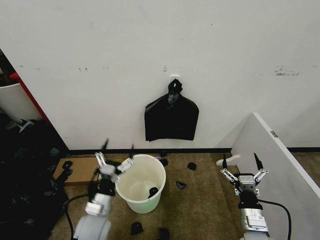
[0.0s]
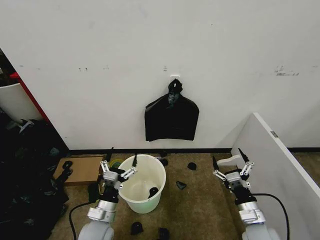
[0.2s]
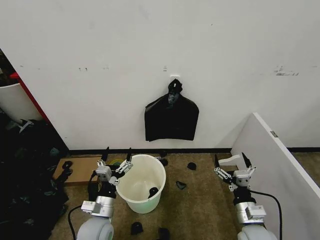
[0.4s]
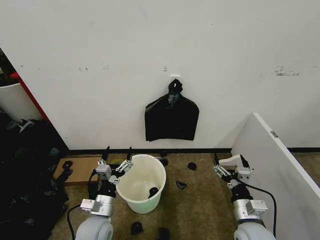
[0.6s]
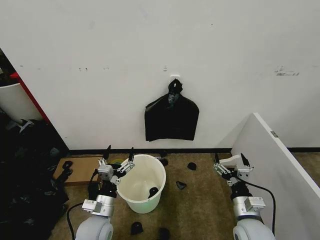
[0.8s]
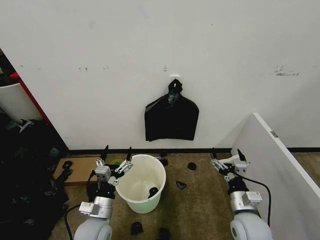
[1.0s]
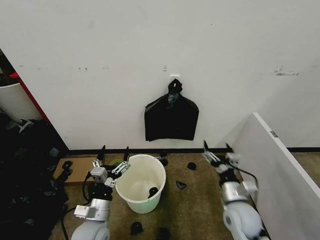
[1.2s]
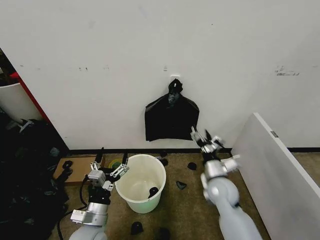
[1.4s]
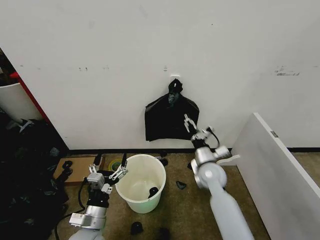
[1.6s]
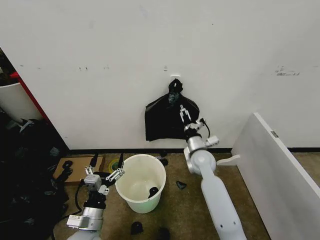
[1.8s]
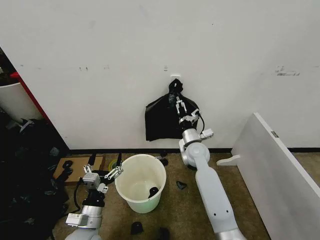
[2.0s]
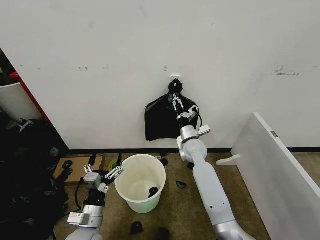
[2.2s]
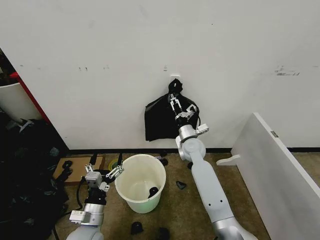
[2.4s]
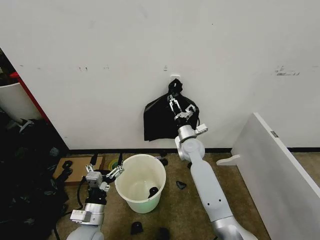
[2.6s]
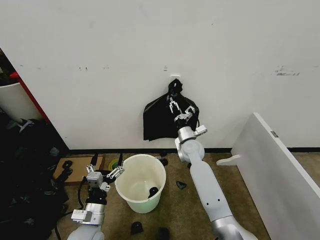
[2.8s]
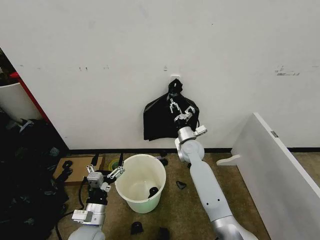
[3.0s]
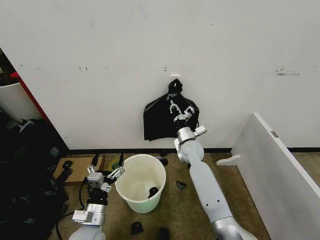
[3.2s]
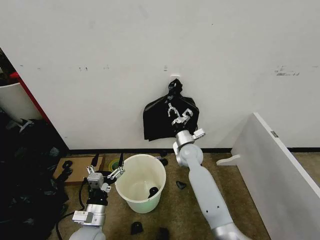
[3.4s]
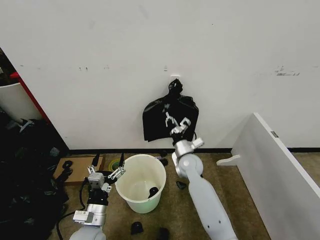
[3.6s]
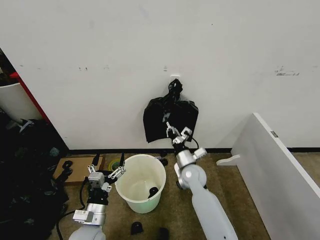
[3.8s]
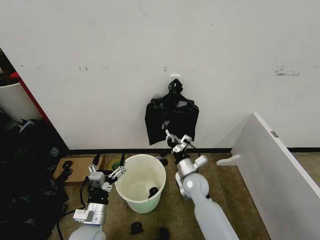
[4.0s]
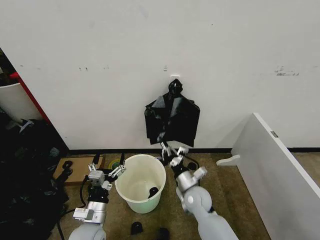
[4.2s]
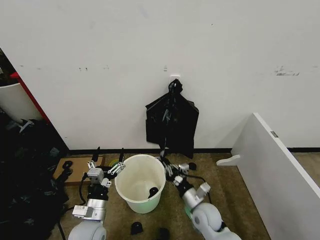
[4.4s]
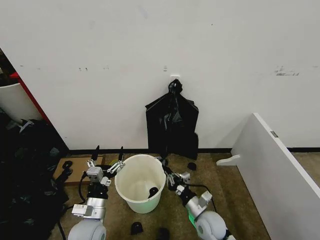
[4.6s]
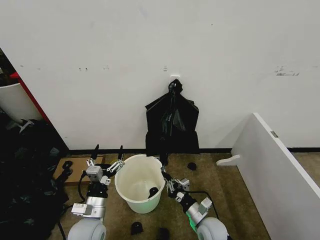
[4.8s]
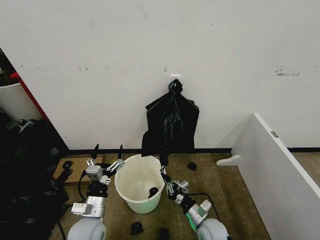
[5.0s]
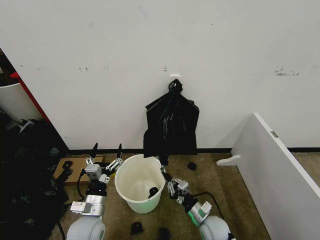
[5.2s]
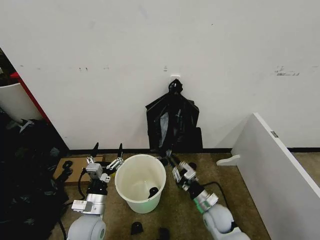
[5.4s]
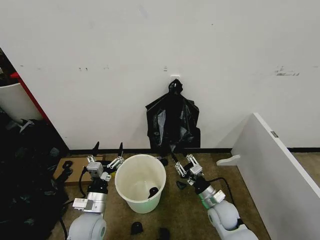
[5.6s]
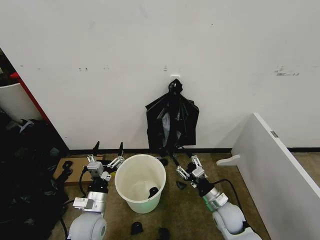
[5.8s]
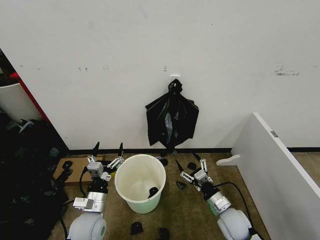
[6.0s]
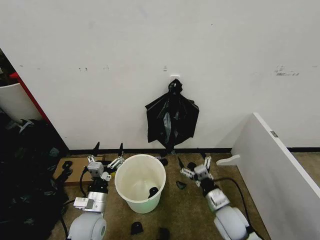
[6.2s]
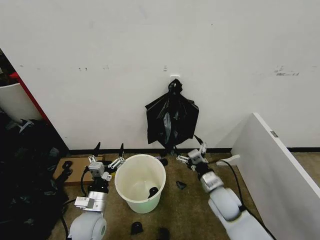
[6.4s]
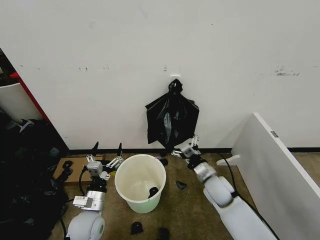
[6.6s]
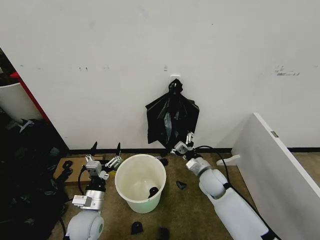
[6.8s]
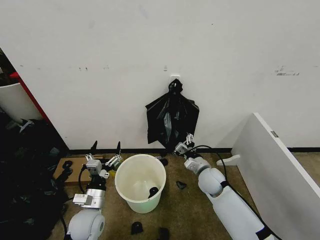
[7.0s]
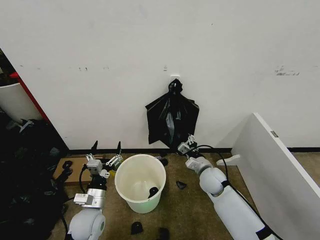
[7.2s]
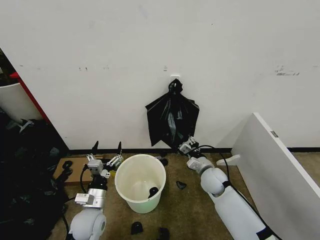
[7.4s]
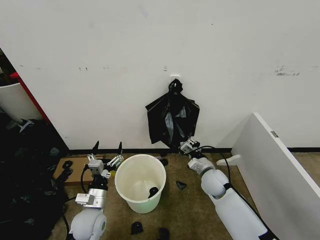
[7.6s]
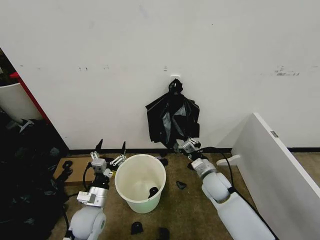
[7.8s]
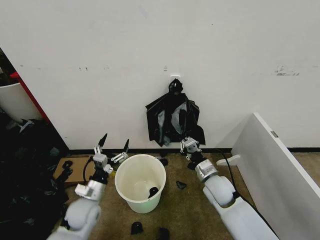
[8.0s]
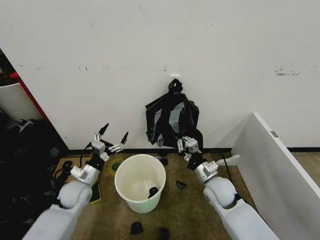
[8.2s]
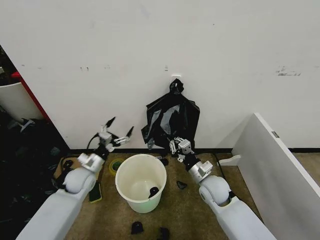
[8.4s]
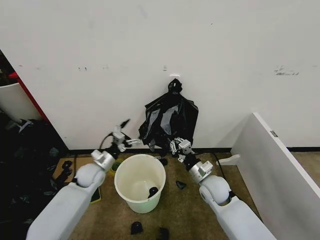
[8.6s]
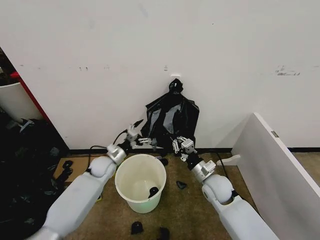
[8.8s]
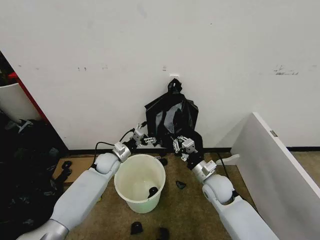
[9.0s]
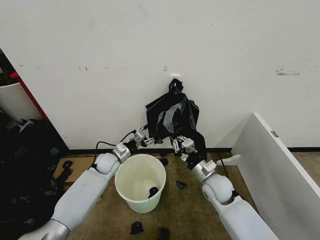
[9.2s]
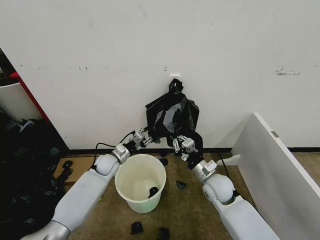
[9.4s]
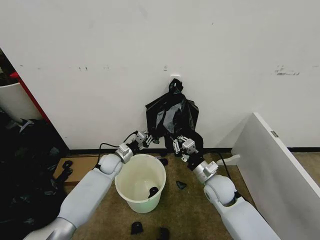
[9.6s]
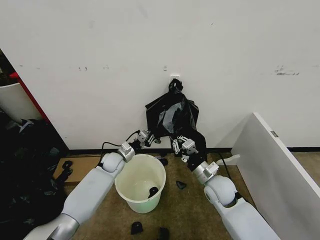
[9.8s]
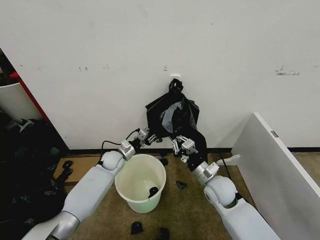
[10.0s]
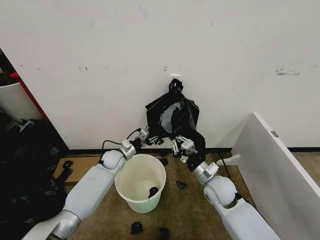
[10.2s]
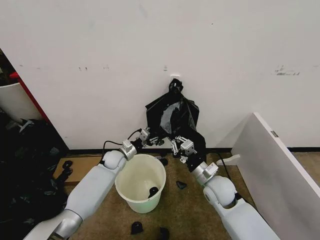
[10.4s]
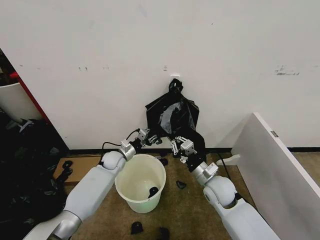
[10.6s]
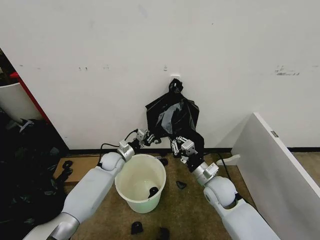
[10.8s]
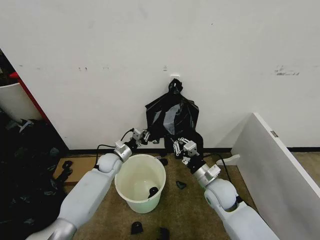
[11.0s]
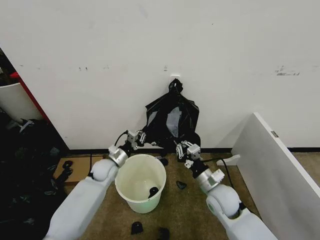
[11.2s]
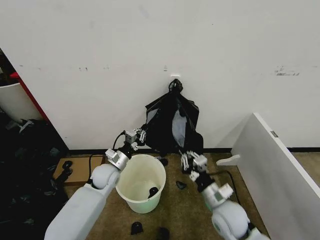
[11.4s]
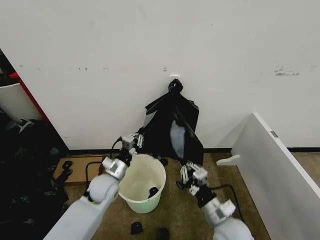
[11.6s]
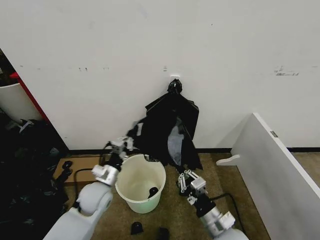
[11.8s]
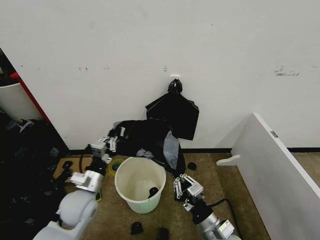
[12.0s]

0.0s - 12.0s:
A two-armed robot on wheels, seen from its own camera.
Task of the whole recording: Place the garbage bag over the trash bin.
1.6s - 3.0s: The right gripper shifts about 10 cm forward, and closes.
3.0s - 4.4s: The right gripper is displaced backward and downward by some 25 cm.
4.4s - 6.0s: The right gripper goes roughly 10 cm to the right, and opens up.
6.0s - 7.6s: The right gripper goes about 15 cm forward, and closes up.
7.6s - 9.0s: The left gripper is displaced forward by some 20 cm.
9.0s - 10.4s: The left gripper closes and opens again.
10.4s - 12.0s: The left gripper travels backward and upward by approximately 25 cm, and closes, while the right gripper moves backward, roughly 15 cm.

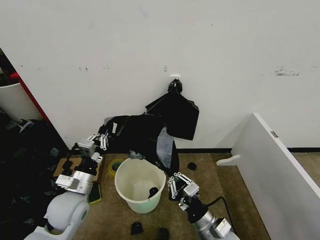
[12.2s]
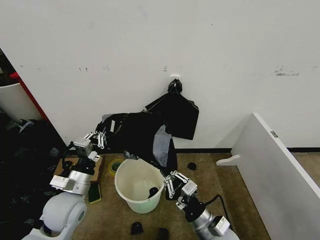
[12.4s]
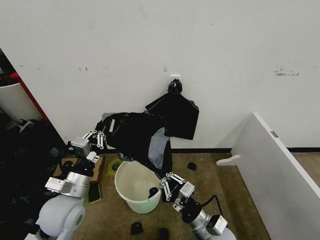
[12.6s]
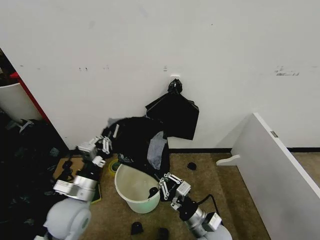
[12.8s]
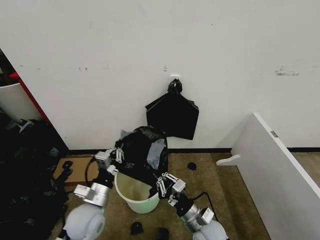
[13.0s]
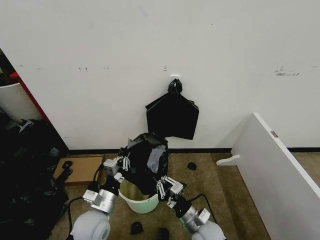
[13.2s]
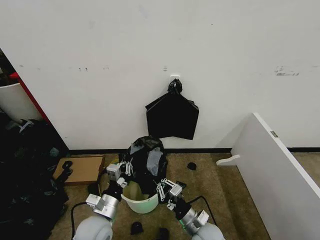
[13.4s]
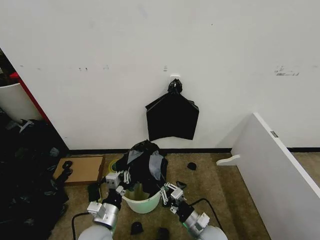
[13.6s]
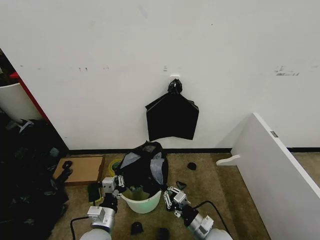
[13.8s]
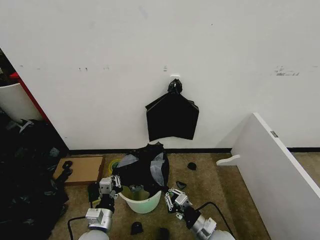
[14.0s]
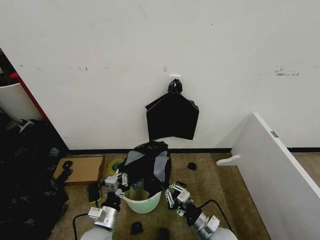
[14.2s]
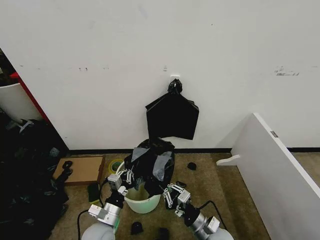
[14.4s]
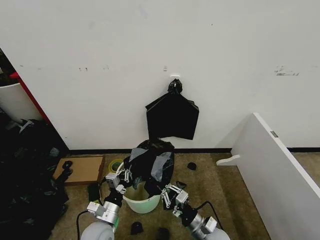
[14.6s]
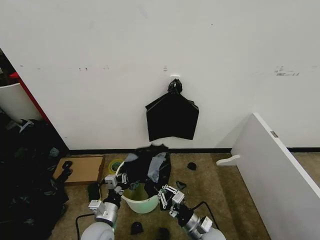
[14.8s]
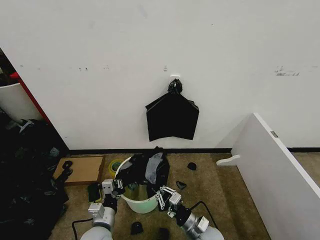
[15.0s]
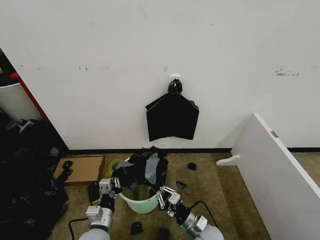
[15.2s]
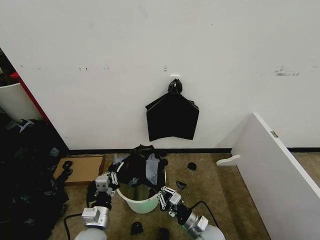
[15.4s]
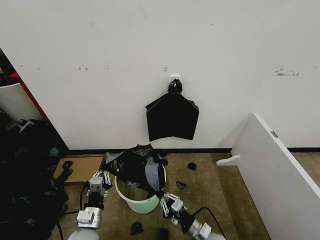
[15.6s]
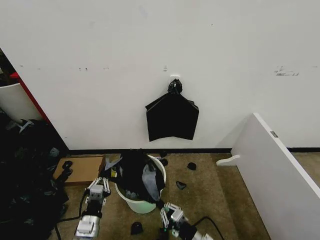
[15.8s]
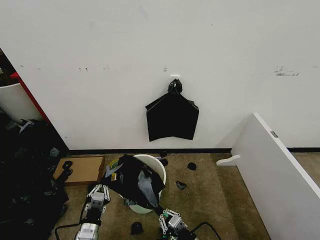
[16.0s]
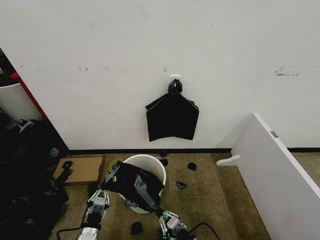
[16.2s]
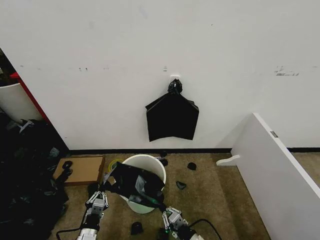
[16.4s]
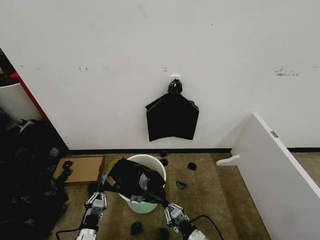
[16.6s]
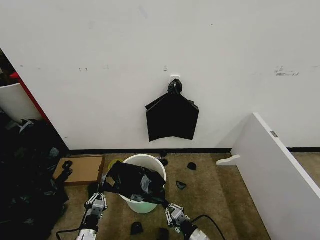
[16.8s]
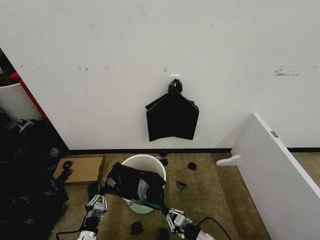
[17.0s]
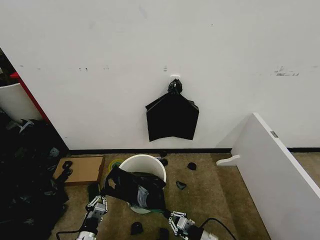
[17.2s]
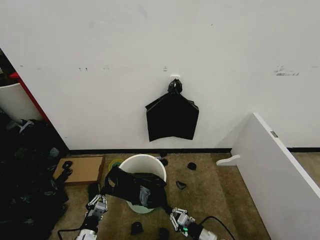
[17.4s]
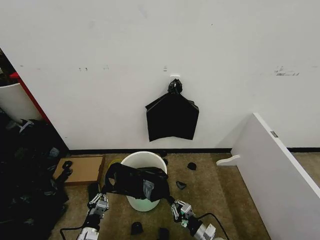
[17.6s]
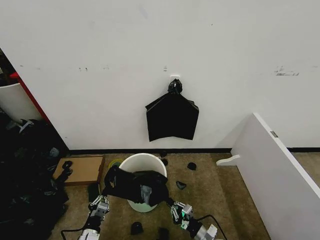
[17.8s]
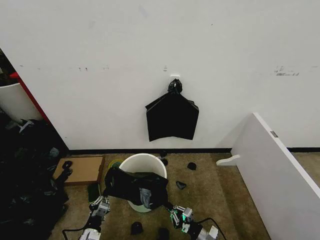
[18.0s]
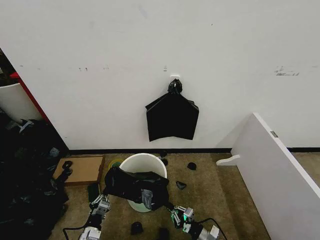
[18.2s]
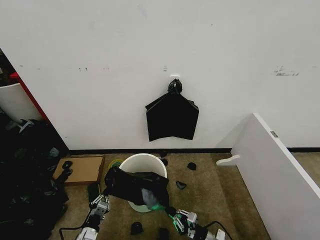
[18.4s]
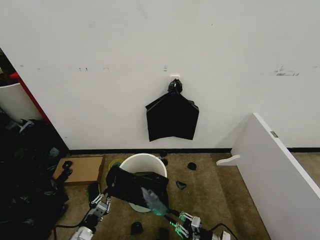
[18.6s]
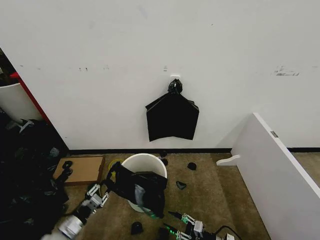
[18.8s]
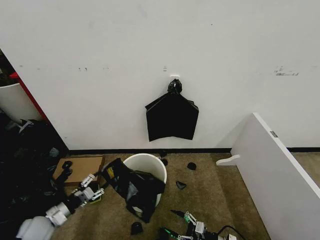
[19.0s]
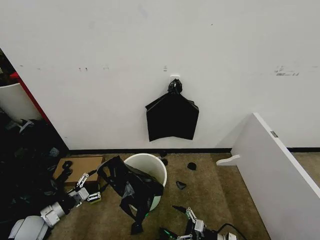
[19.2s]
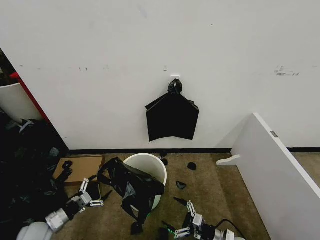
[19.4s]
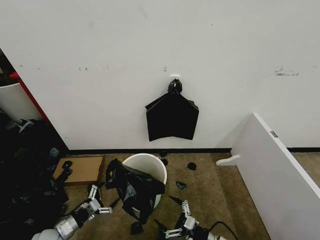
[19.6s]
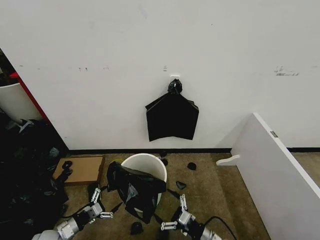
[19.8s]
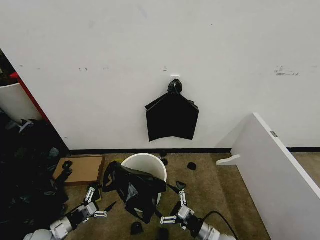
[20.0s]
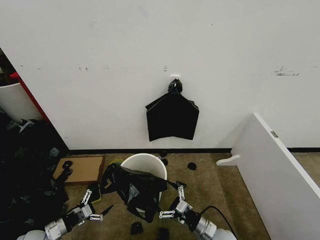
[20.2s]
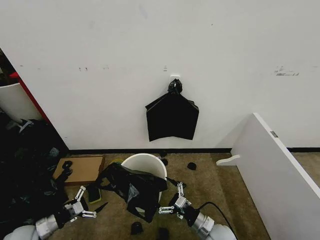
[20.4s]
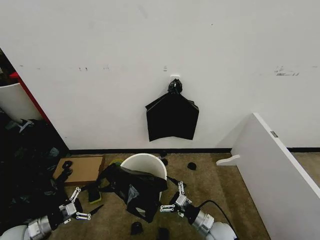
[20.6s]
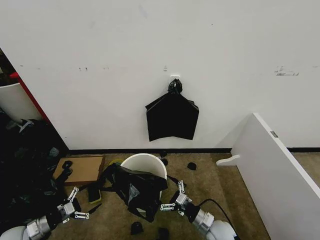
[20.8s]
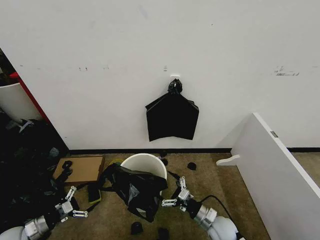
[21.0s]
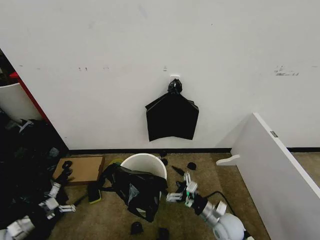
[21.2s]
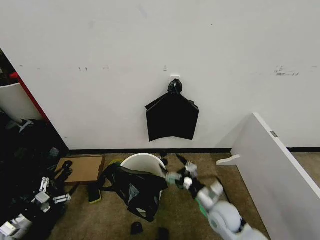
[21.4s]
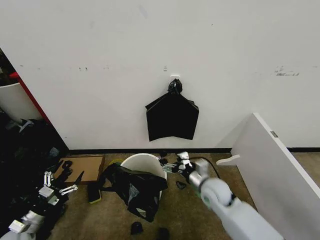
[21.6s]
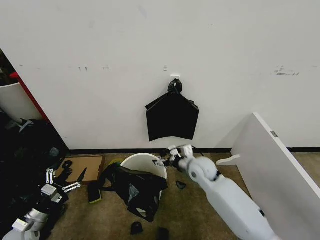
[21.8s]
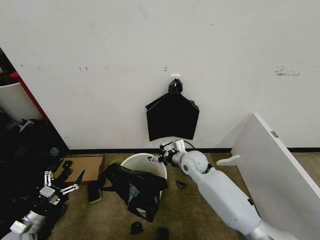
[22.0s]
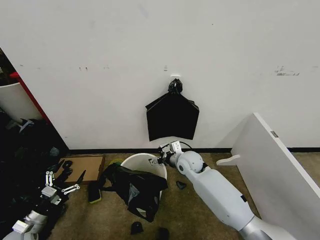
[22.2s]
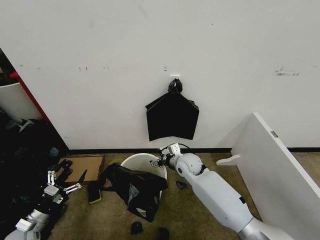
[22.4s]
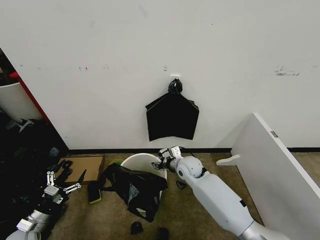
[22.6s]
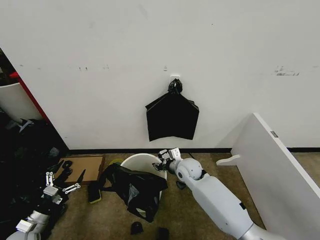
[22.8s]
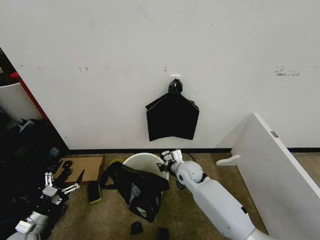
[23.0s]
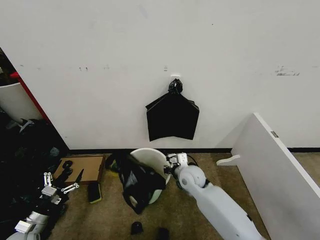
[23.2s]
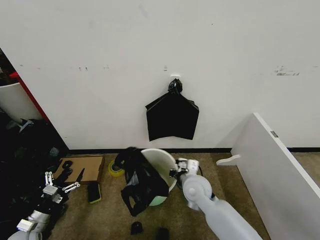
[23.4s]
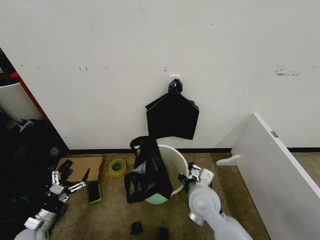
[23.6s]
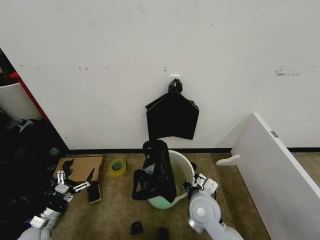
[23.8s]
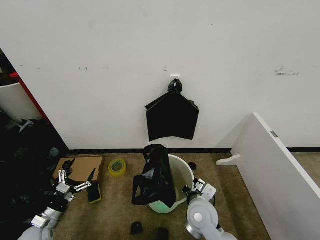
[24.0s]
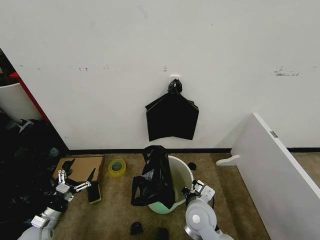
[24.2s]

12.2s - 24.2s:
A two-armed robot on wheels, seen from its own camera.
Task of the whole recording: Place the garbage bag over the trash bin.
12.2s - 13.8s: The left gripper is displaced downward, backward and to the right by some 15 cm. The right gripper moves downward, roughly 10 cm.
15.2s - 16.6s: The left gripper goes approximately 10 cm downward and to the left. Meanwhile the right gripper shifts some 5 cm backward.
16.6s - 18.2s: The right gripper shifts about 10 cm downward and to the right.
18.2s - 19.8s: The right gripper shifts about 10 cm upward, and opens, while the left gripper goes approximately 15 cm to the left and upward, and opens its fingers.
19.8s - 21.2s: The right gripper moves forward, roughly 5 cm. Meanwhile the left gripper shifts about 15 cm to the left.
21.2s - 22.6s: The right gripper heads forward, to the left and upward, covering approximately 25 cm, while the left gripper is displaced to the right by some 10 cm.
22.6s - 24.2s: The right gripper moves backward, some 20 cm, and closes its fingers.
